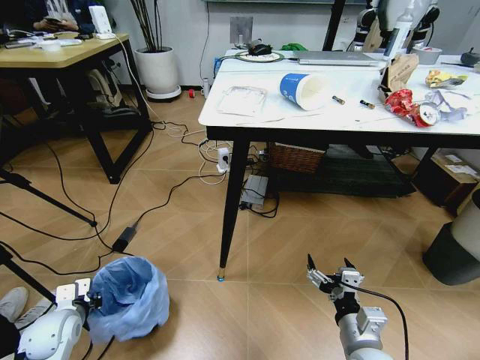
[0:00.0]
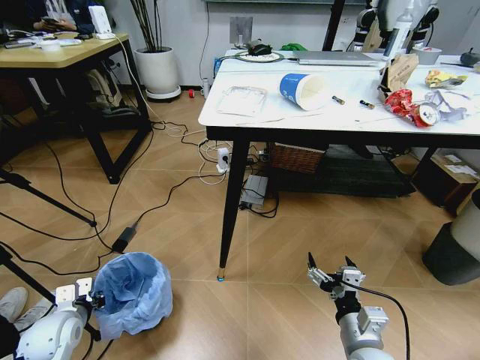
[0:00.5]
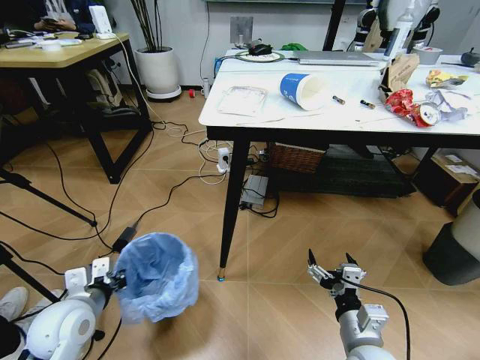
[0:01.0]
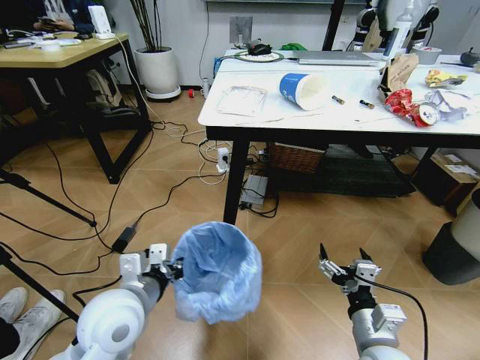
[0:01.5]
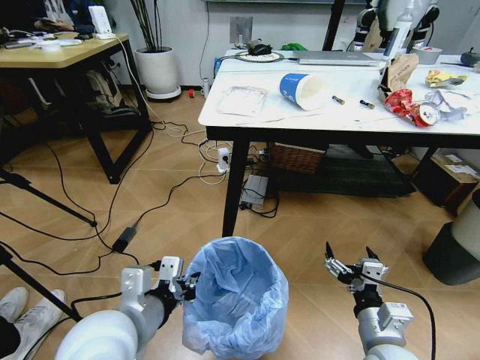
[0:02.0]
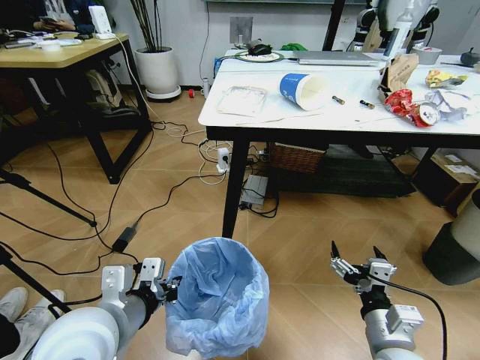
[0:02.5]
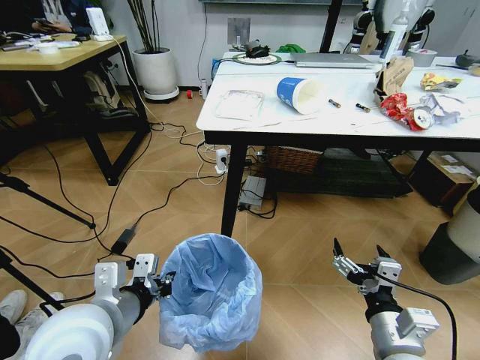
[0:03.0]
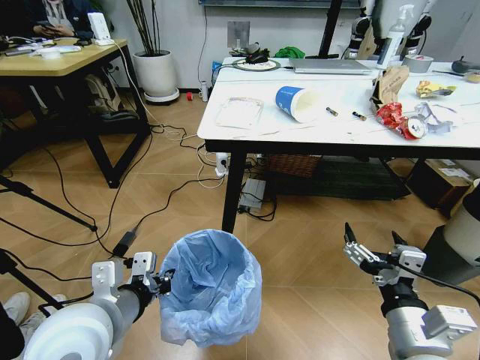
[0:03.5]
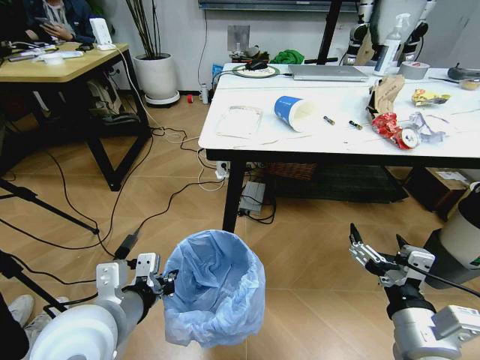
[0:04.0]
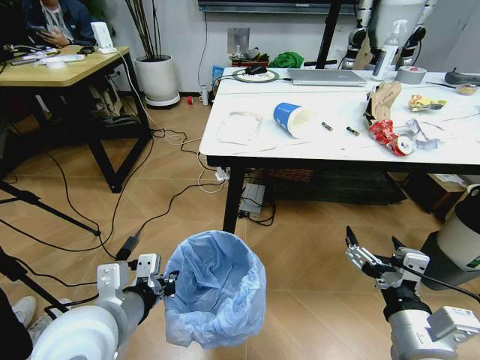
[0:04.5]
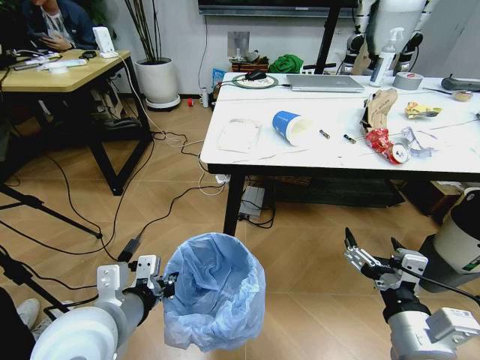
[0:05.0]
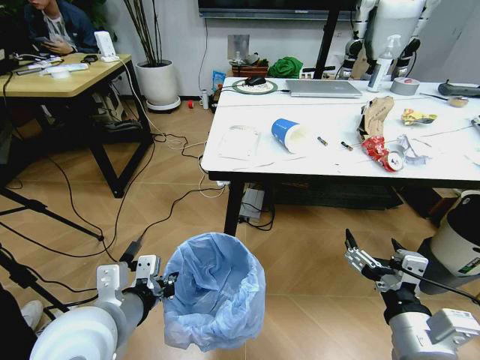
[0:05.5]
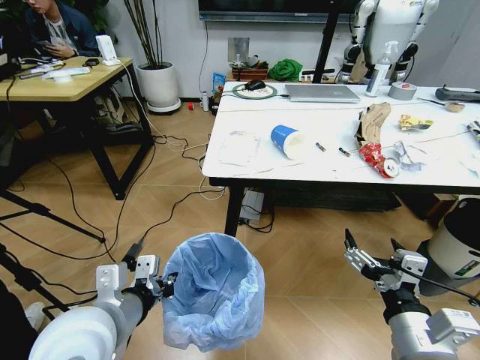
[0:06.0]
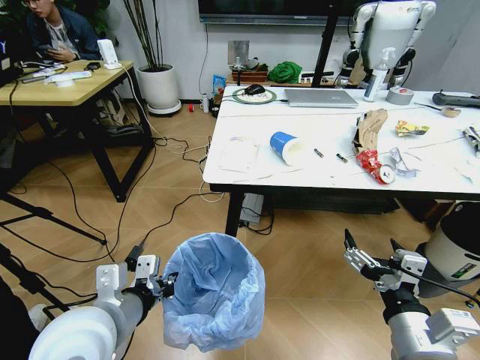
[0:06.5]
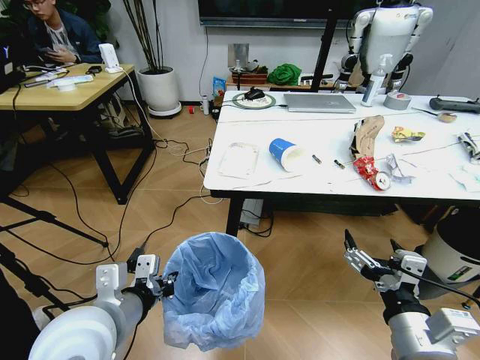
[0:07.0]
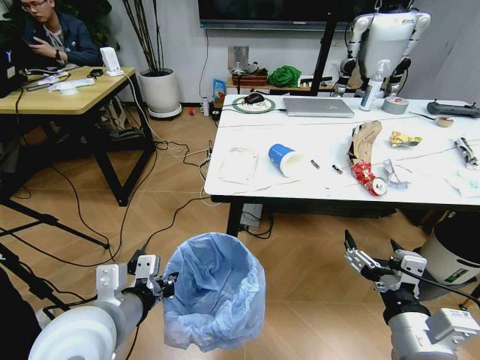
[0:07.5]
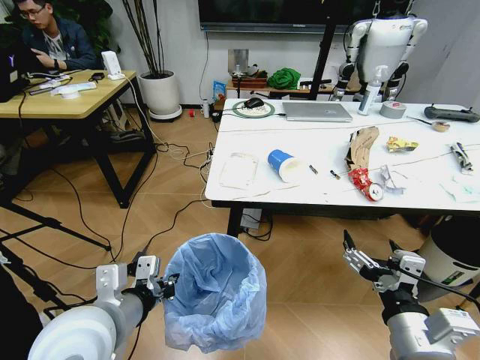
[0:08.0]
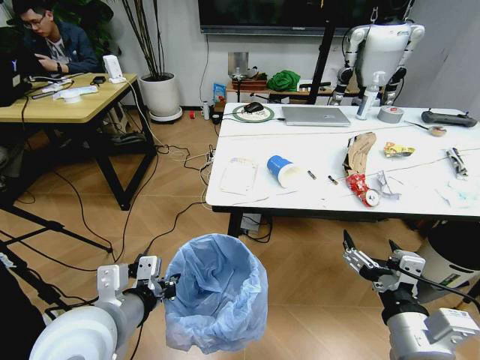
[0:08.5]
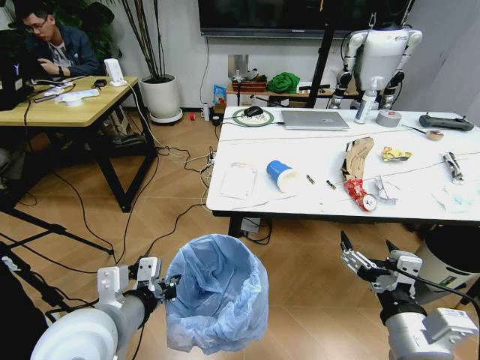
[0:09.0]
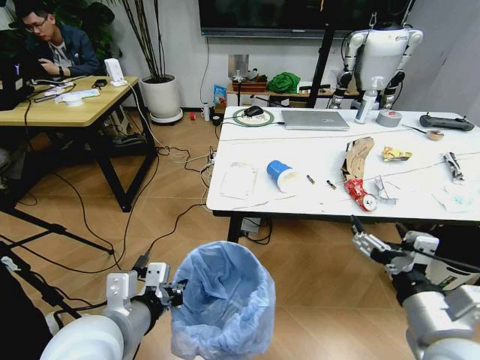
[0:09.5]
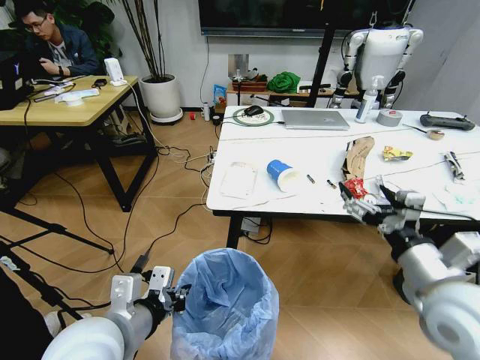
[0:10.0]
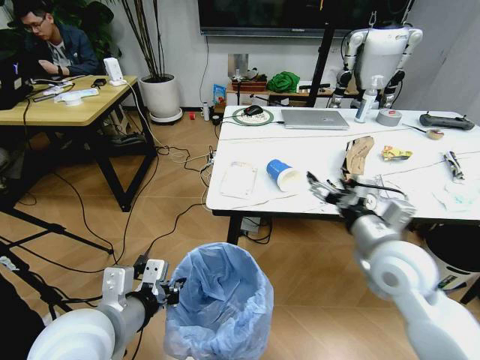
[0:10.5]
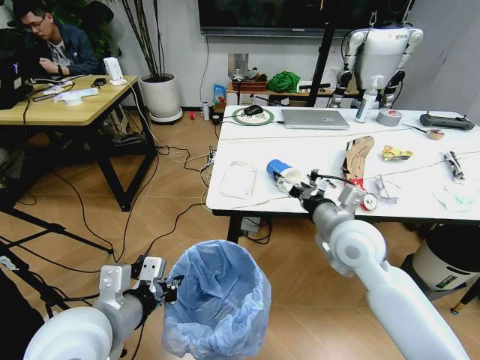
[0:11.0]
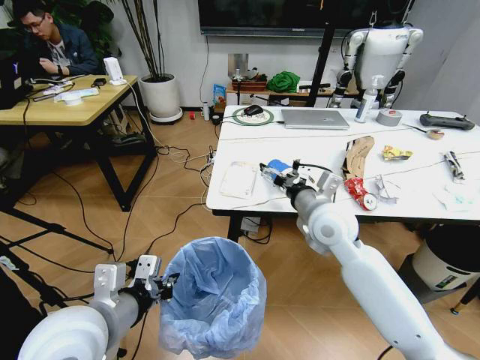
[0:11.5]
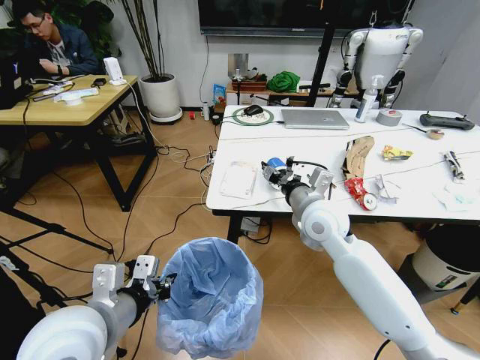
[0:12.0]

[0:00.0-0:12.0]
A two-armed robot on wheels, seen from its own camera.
Task of the whole recording: Pick up the trash bin and place the trash from the table into it.
0.0 to 2.0 s: The left gripper goes roughly 30 cm to the right and upward.
2.0 to 4.0 s: The right gripper is displaced upward by roughly 10 cm.
8.0 to 10.0 s: The right gripper is displaced forward and upward by approximately 10 cm.
10.0 to 12.0 s: The right gripper shifts some 25 cm forward and to the left, and closes up.

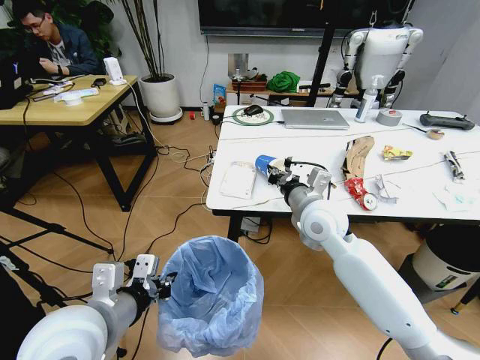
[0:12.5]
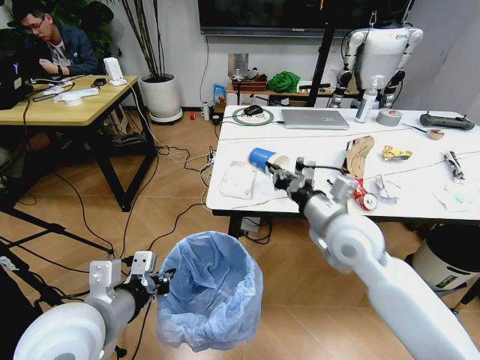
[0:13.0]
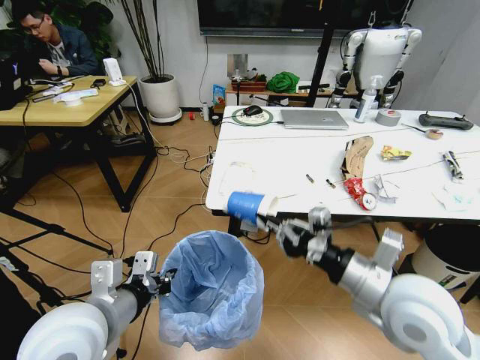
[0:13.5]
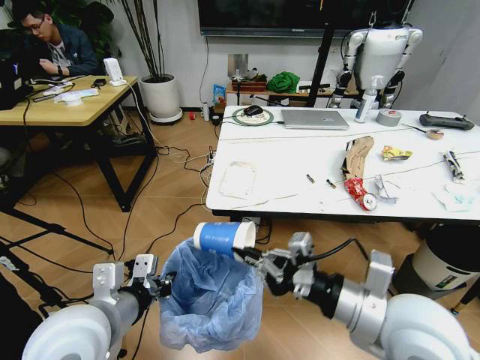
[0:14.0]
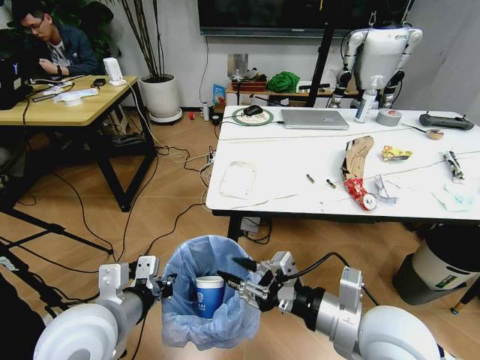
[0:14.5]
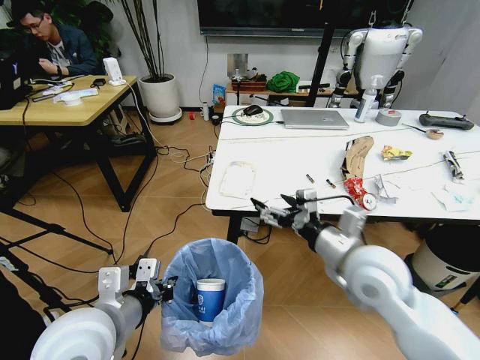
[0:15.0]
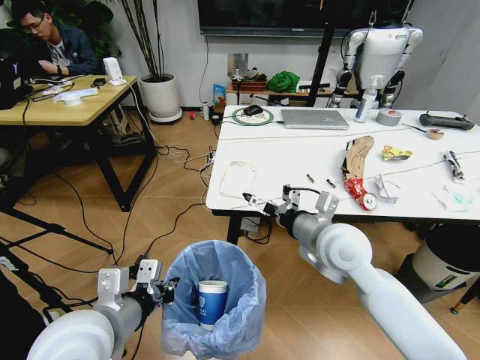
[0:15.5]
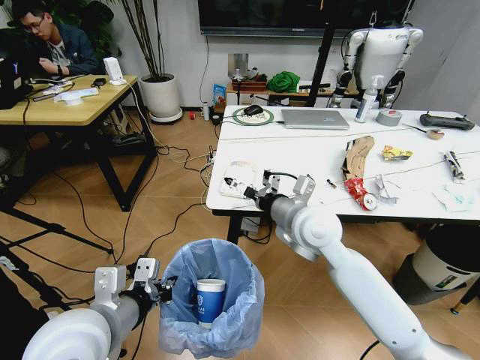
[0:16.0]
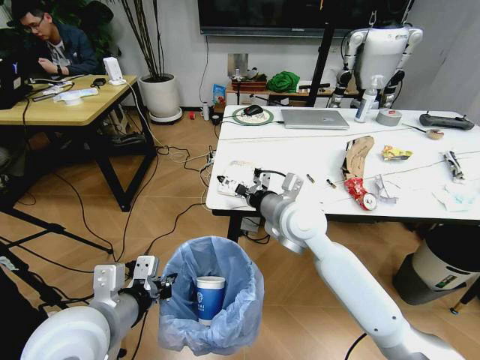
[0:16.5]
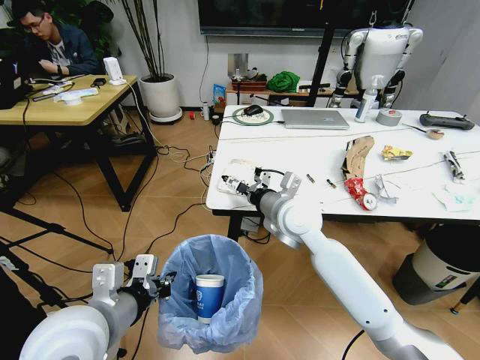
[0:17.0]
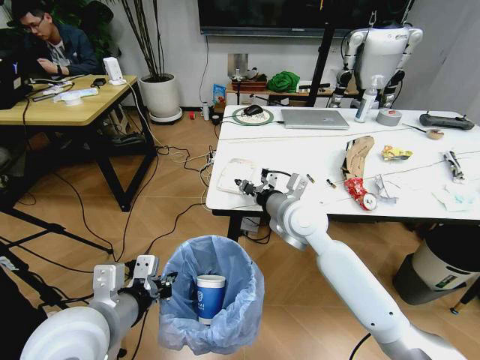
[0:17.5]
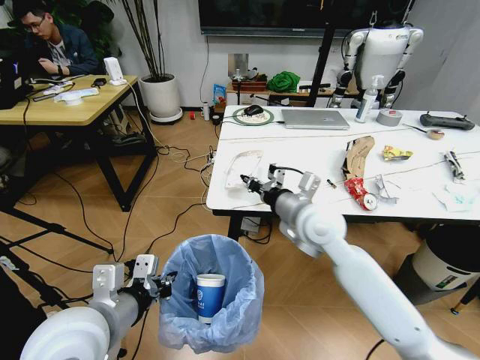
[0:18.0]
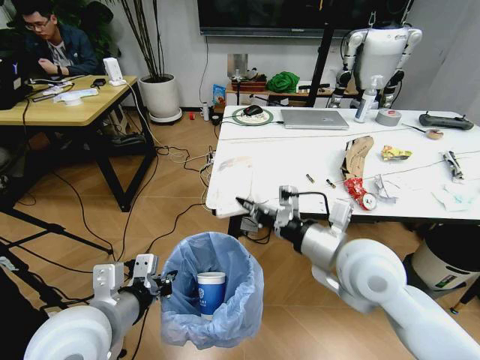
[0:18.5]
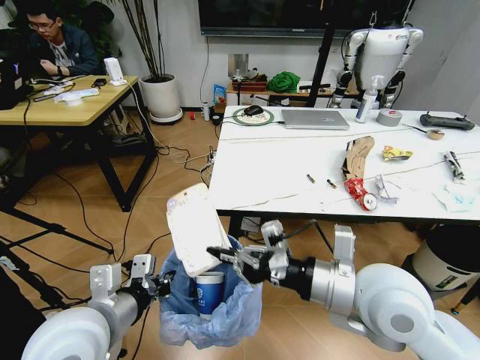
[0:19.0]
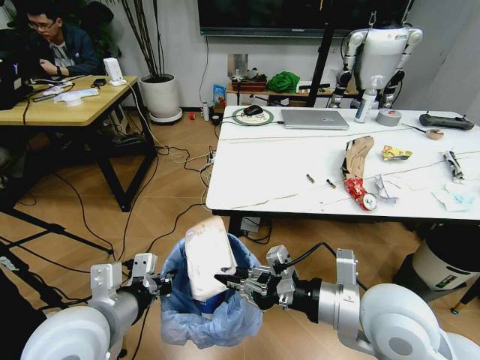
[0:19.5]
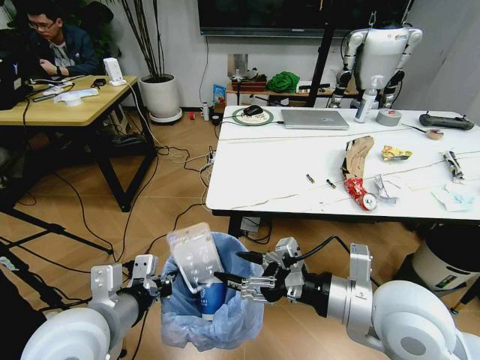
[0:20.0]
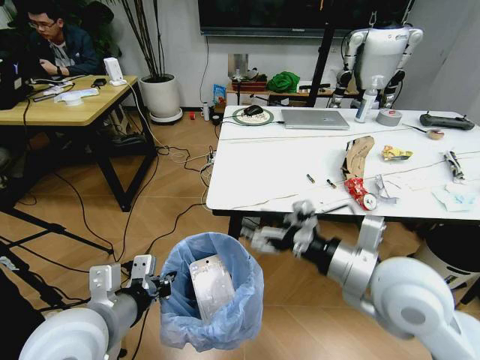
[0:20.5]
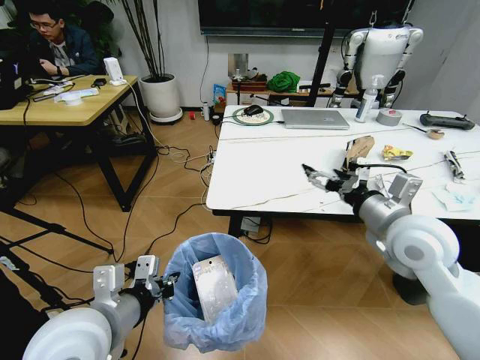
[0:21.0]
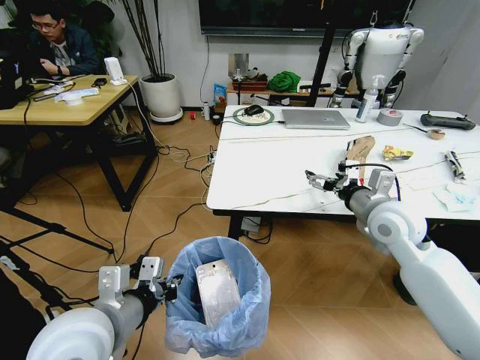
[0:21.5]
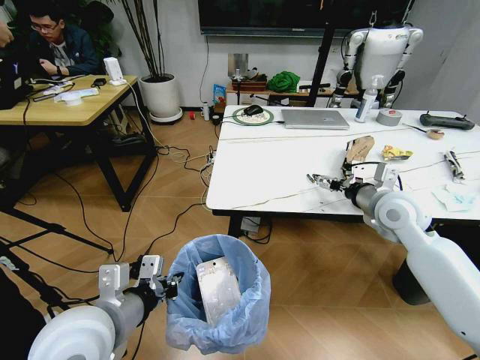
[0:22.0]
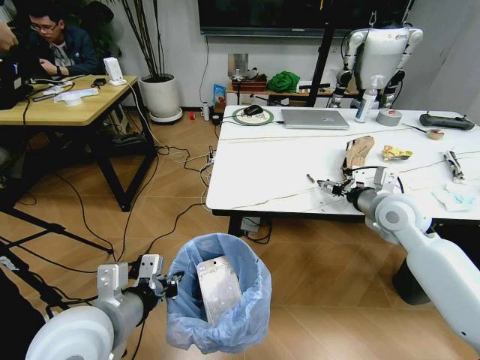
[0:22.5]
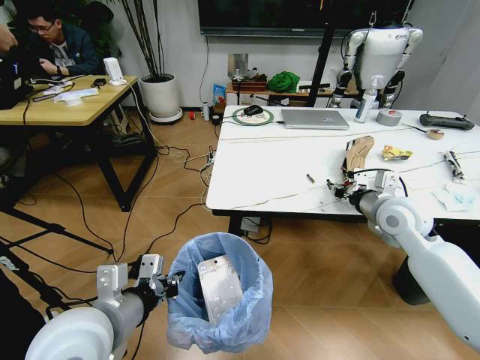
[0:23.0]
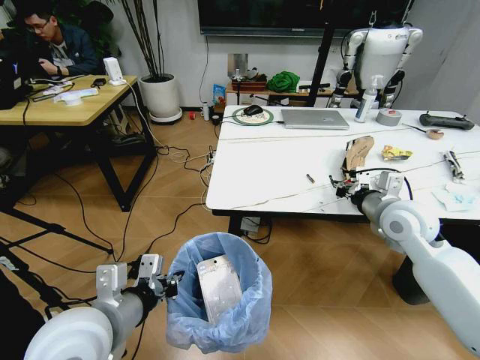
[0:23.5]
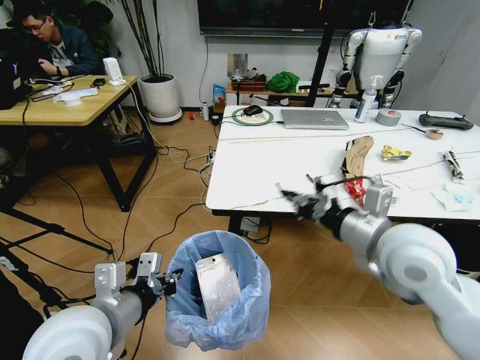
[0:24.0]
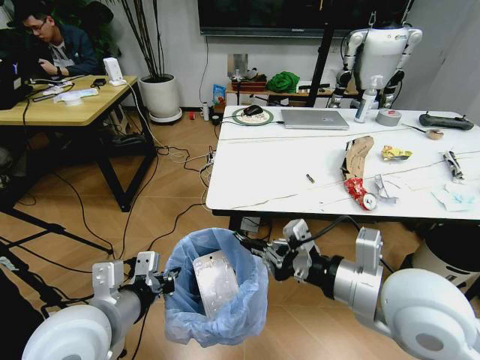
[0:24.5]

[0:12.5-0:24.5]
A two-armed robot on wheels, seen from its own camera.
Task of the whole recording: Pick up the trash bin and place the trash from the table into it.
12.5 to 14.5 s: The right gripper moves backward, approximately 20 cm, and opens up.
14.5 to 16.5 s: The right gripper shifts about 25 cm forward and to the left, and opens its fingers.
16.5 to 18.5 s: The right gripper heads backward and to the right, covering roughly 15 cm, and closes up.
18.5 to 20.5 s: The right gripper shifts by roughly 5 cm, and opens.
20.5 to 22.5 s: The right gripper goes some 20 cm forward and to the right.
22.5 to 24.5 s: The right gripper is displaced backward and to the left by some 25 cm, and closes.

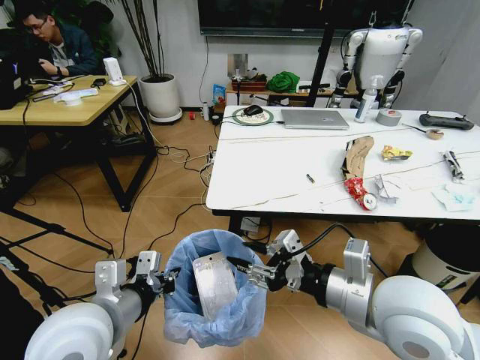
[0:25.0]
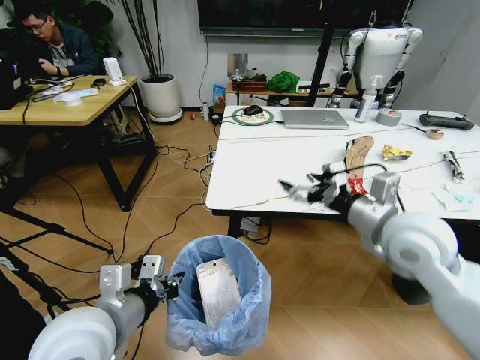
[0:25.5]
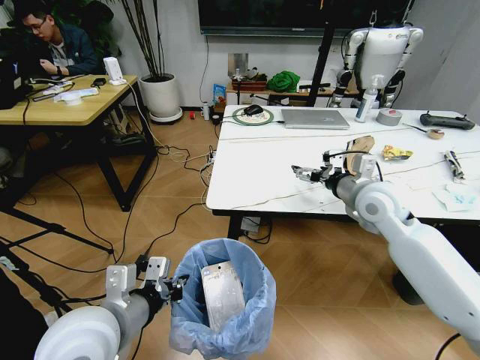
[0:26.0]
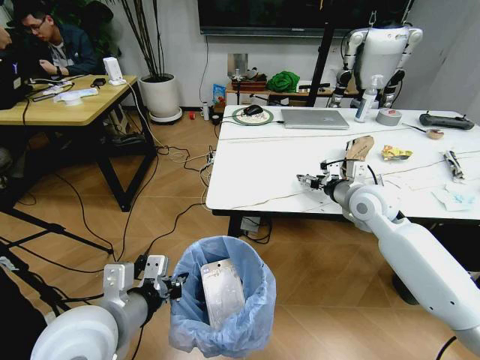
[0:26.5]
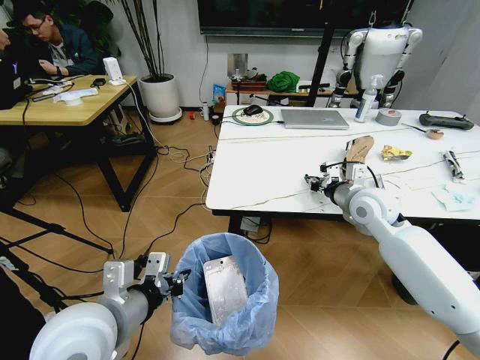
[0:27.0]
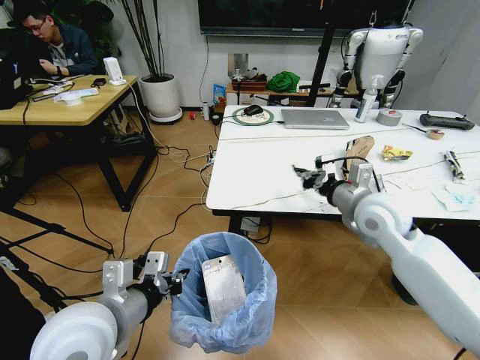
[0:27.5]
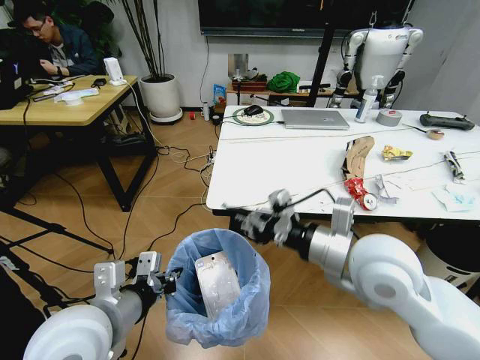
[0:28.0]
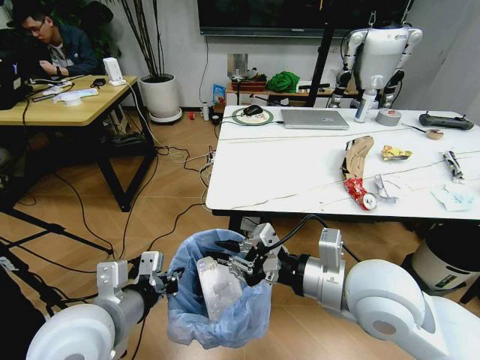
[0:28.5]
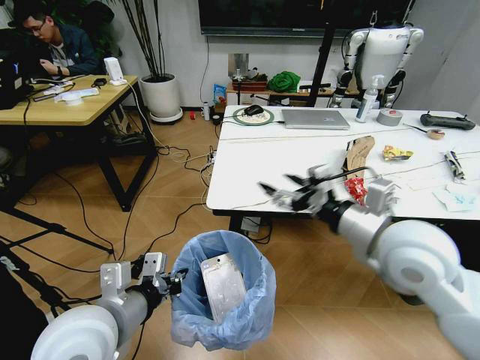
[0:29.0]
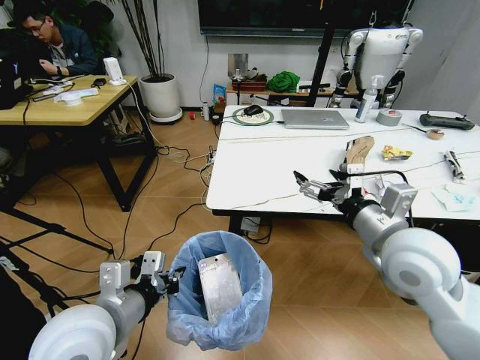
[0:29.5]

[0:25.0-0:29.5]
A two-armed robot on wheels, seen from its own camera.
Task of the whole recording: Pick up the trash bin and place the trash from the table into it.
25.0 to 27.0 s: The right gripper moves forward, some 25 cm, and closes its fingers.
27.0 to 29.5 s: The right gripper travels backward and upward by some 20 cm, and opens up.
